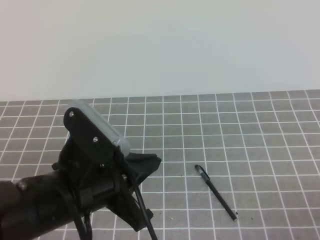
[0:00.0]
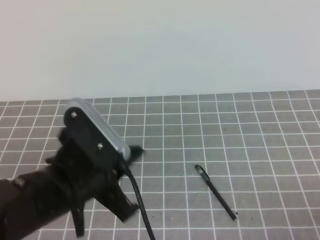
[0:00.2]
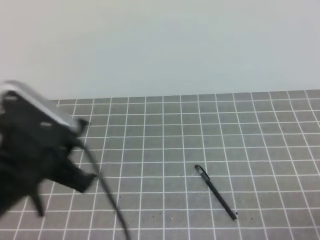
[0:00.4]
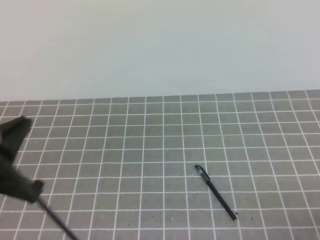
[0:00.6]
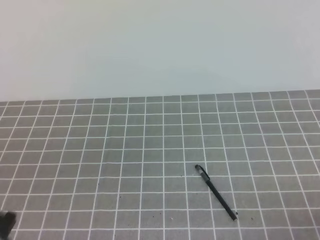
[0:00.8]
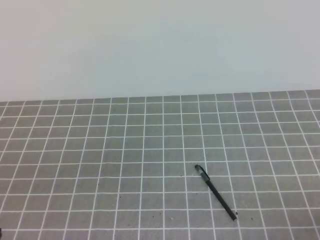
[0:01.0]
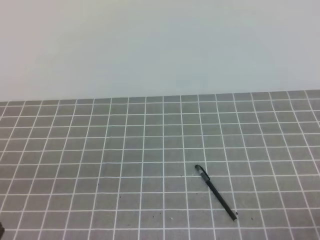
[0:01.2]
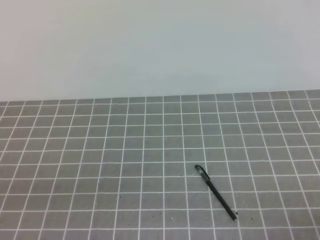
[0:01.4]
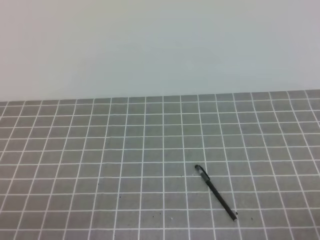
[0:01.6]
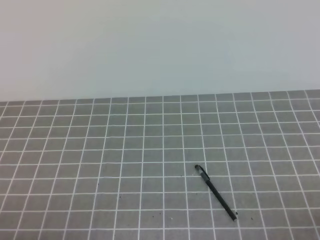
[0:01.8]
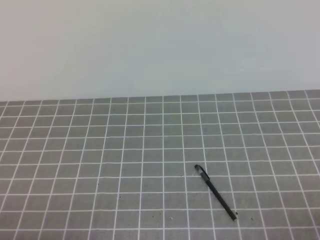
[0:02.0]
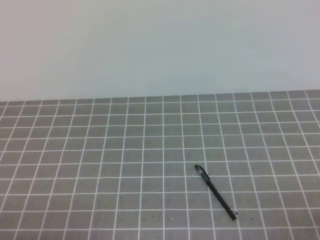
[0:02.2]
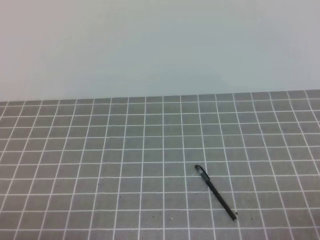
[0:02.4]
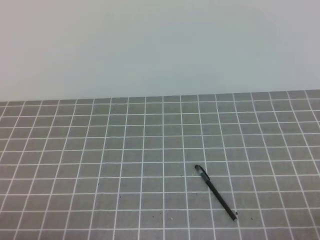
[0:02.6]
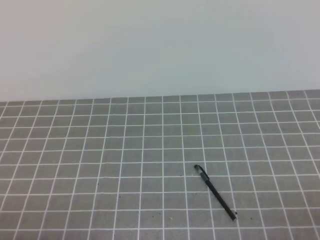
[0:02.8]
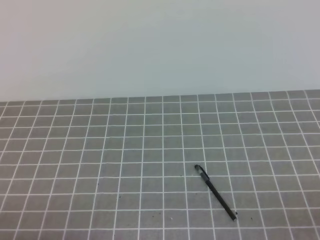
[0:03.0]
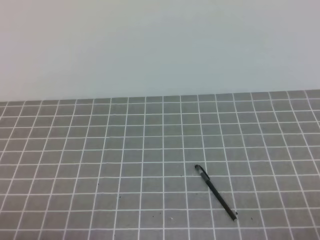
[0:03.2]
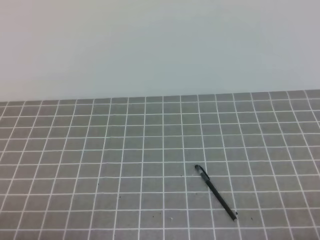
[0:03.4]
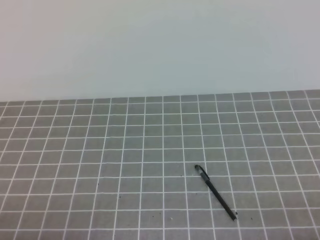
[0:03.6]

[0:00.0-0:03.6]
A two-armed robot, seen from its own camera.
Task of the whole recording: on the grey tablecloth, hold the pen cap in one hand and the pen in the other, then cover the pen cap.
Step, 0:00.0 to 0:03.6: Put the cap on the pen.
0:00.0 to 0:01.8: The left gripper travels to the left, backward and downward by some 20 cm.
